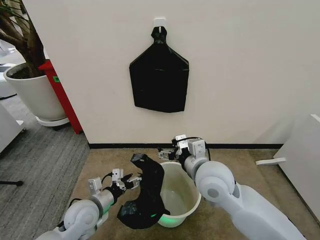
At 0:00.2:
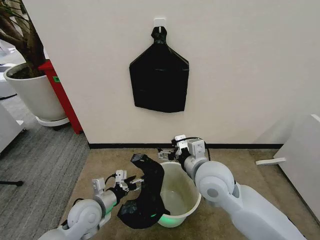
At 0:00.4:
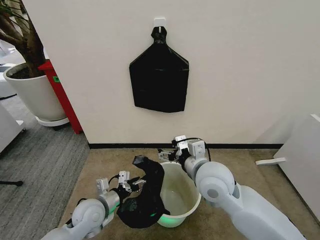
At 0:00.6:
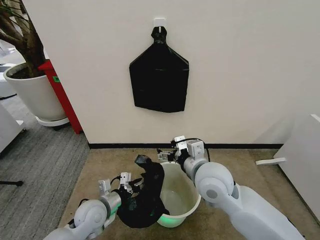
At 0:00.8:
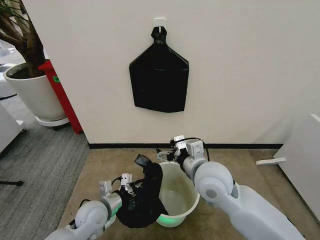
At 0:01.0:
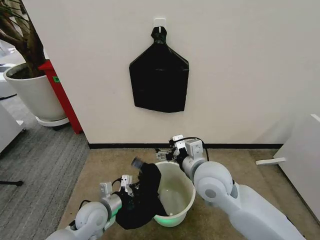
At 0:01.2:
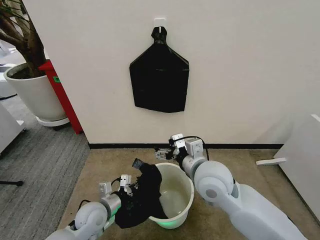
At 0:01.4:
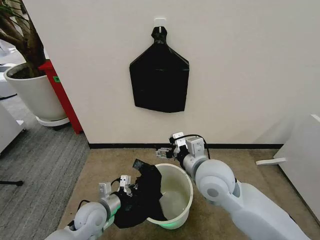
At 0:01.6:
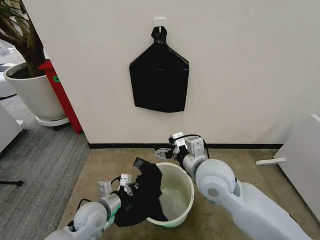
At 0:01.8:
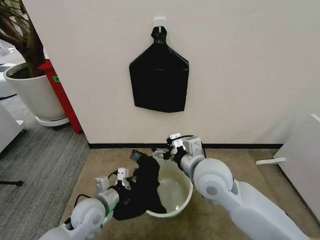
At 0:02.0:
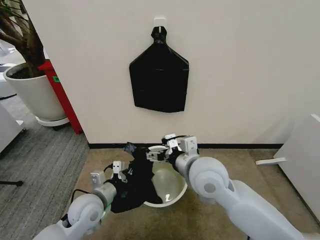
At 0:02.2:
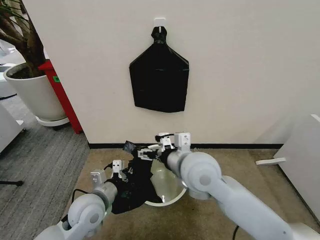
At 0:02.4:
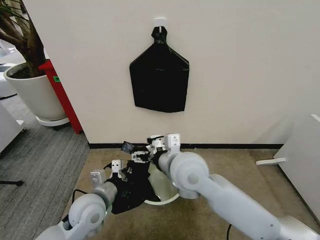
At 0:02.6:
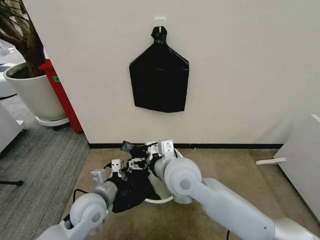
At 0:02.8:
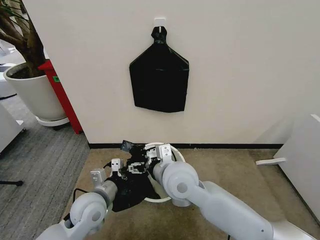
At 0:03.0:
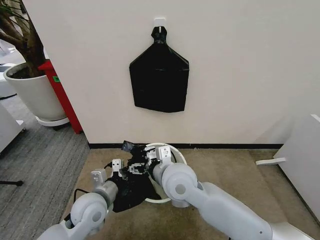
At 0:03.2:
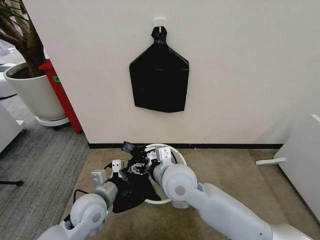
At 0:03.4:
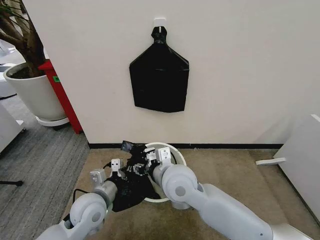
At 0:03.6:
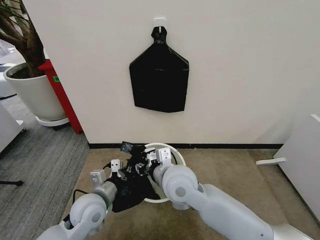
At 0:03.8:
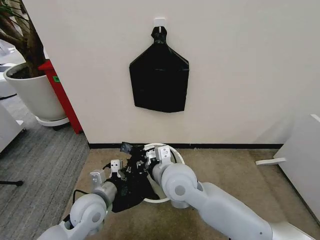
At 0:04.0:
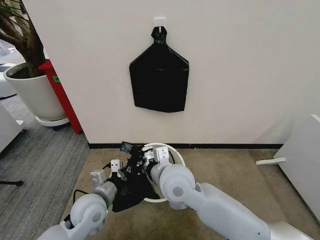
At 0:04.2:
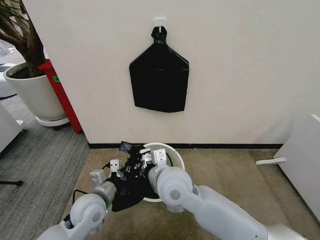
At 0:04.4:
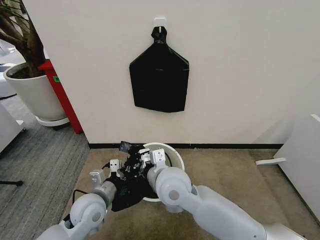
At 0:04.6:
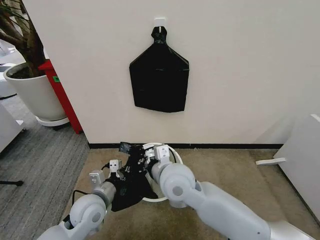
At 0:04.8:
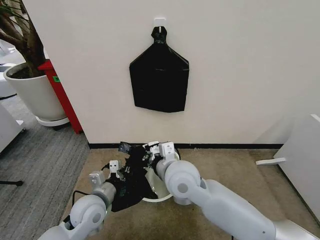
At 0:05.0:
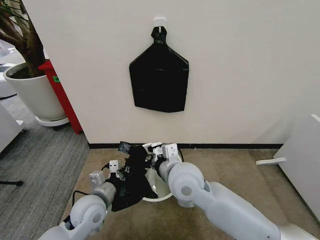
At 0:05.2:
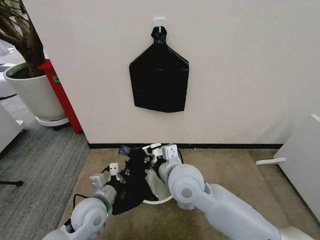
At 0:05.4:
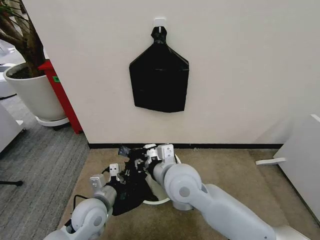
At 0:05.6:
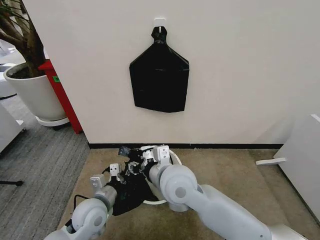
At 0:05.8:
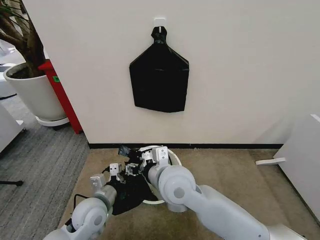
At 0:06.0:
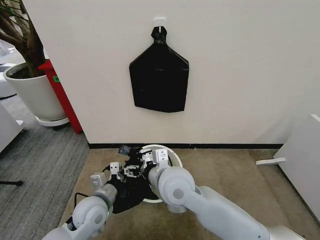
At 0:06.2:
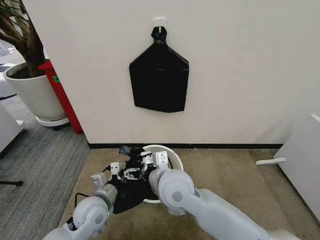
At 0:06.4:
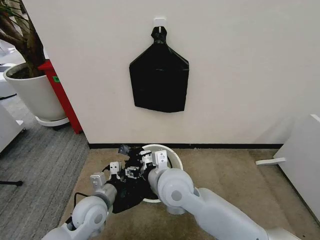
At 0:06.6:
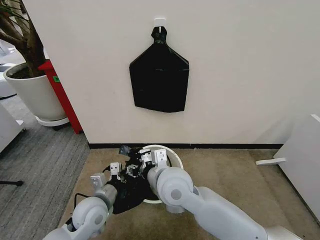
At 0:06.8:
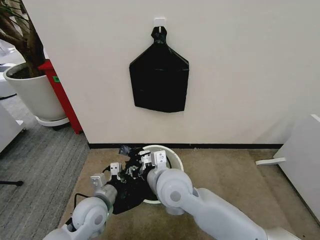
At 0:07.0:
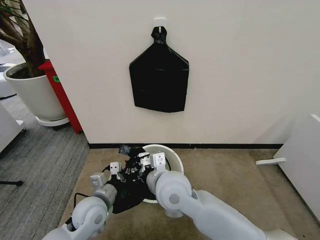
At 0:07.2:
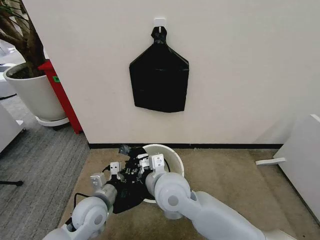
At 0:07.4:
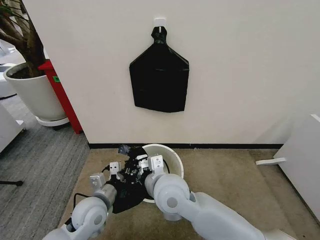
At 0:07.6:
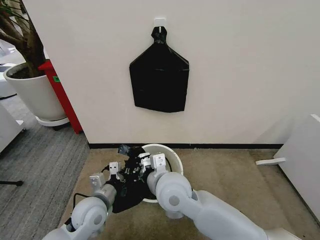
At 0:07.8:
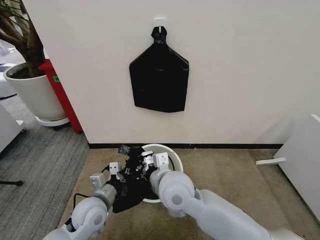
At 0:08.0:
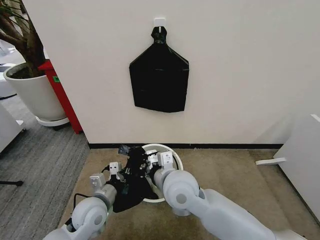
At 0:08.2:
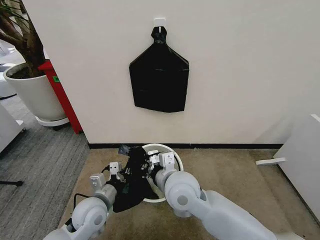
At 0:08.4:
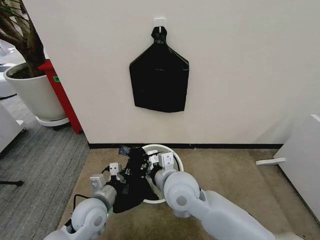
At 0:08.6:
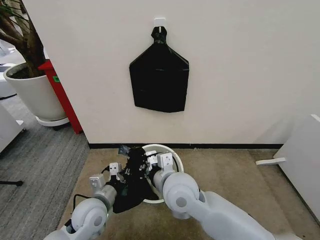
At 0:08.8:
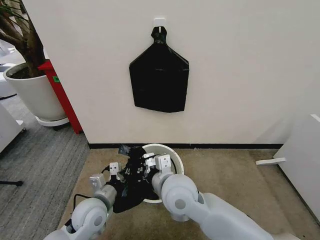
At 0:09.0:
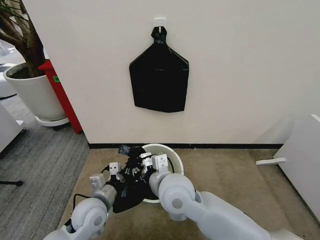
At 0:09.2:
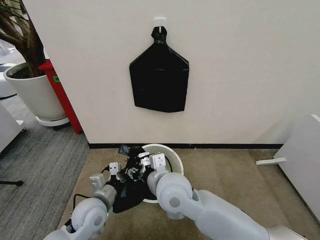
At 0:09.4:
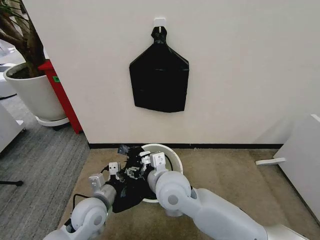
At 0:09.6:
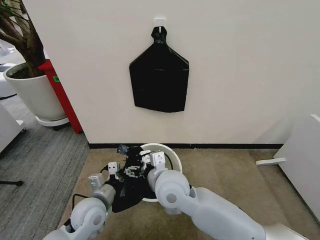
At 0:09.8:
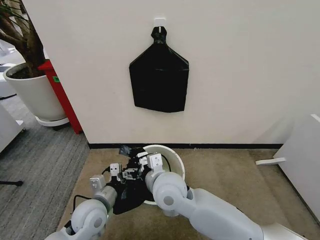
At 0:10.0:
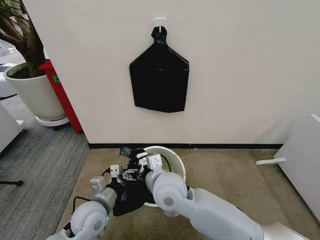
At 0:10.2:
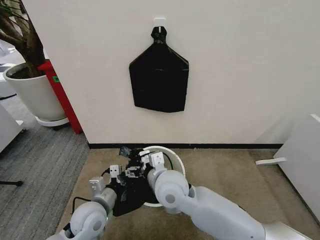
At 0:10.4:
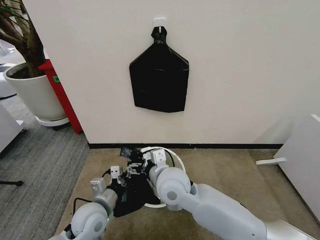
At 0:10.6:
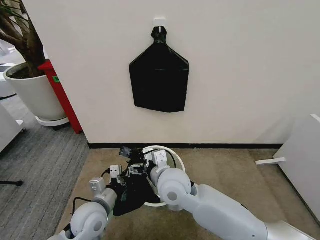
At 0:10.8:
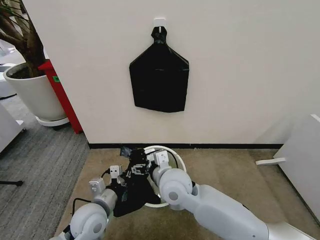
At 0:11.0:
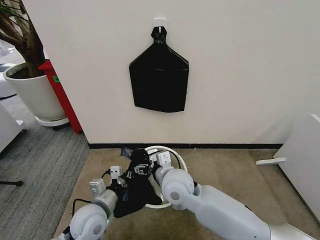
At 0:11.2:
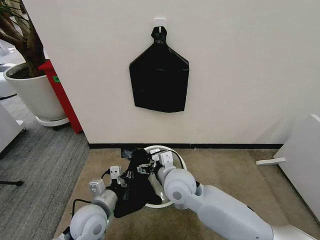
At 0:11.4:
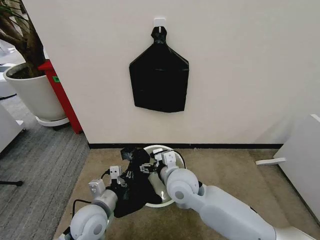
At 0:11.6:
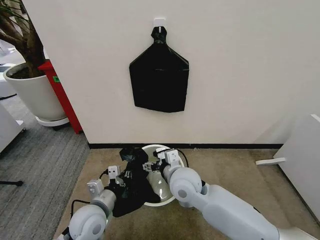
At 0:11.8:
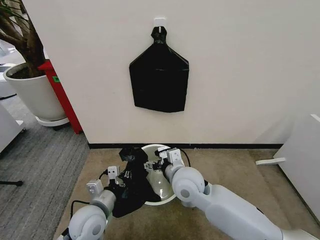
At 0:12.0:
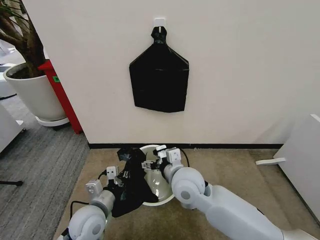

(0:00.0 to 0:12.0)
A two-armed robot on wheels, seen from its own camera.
Task of the whole recording: Place the garbage bag over the trash bin.
0:00.0 - 0:01.6: The left gripper closes up.
0:01.6 - 0:03.0: The right gripper travels to the left by approximately 10 cm. Meanwhile the left gripper shifts about 5 cm upward.
0:03.0 - 0:04.4: The right gripper closes.
0:04.4 - 0:06.0: The right gripper opens its fingers.
0:06.0 - 0:07.6: The right gripper closes its fingers.
0:07.6 - 0:09.0: There are only small adjustments of the grippers.
0:09.0 - 0:10.4: The right gripper opens up.
0:10.4 - 0:12.0: The grippers make only small movements.

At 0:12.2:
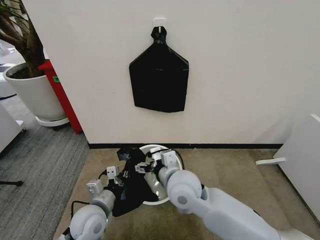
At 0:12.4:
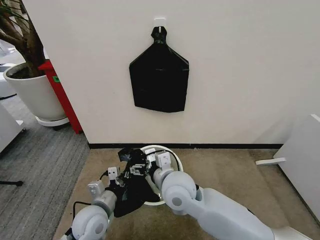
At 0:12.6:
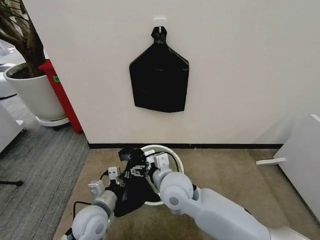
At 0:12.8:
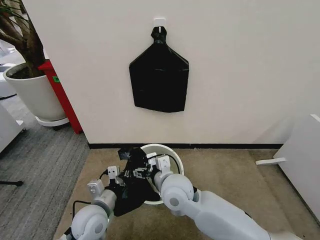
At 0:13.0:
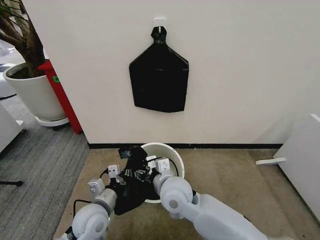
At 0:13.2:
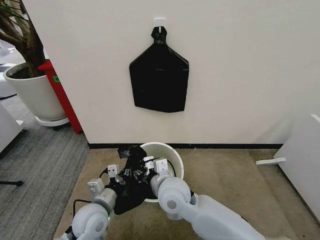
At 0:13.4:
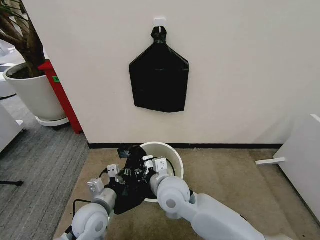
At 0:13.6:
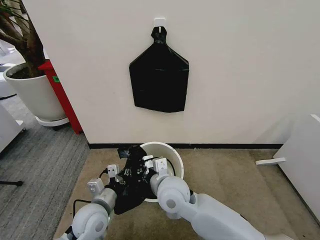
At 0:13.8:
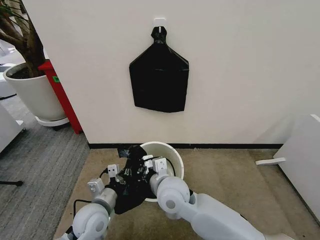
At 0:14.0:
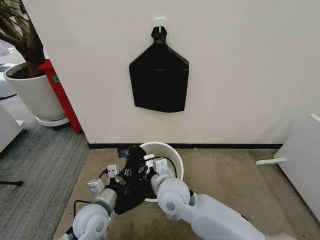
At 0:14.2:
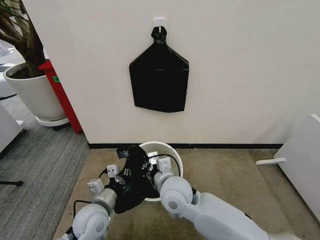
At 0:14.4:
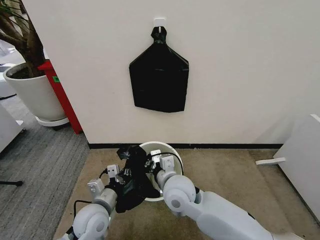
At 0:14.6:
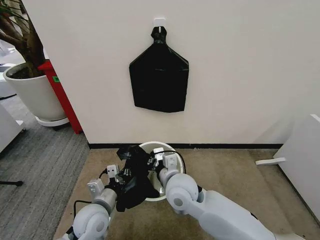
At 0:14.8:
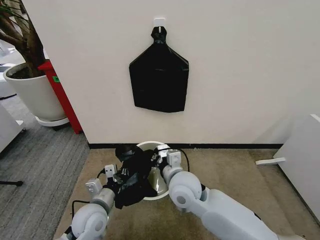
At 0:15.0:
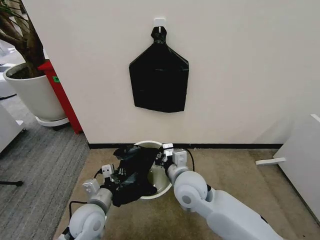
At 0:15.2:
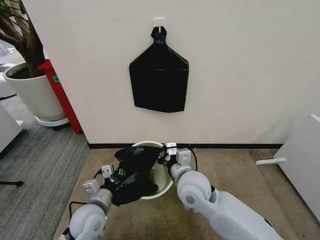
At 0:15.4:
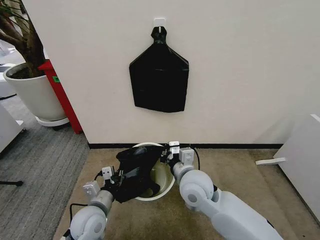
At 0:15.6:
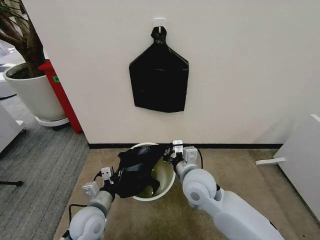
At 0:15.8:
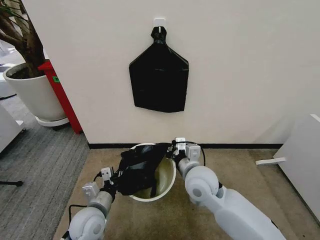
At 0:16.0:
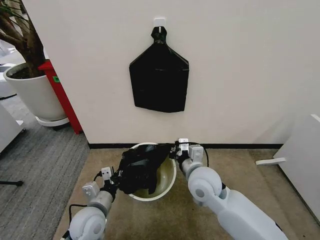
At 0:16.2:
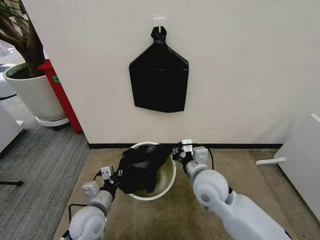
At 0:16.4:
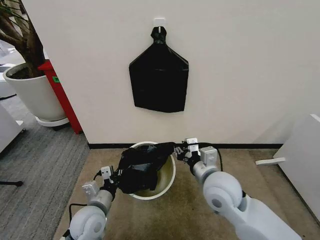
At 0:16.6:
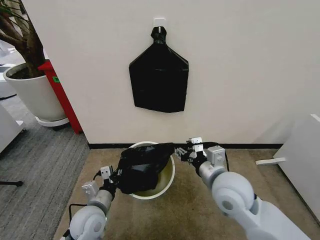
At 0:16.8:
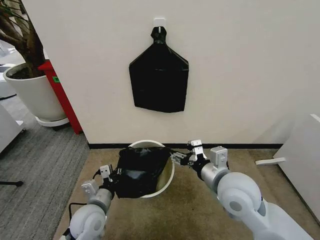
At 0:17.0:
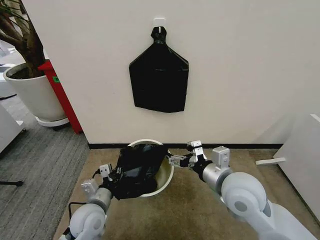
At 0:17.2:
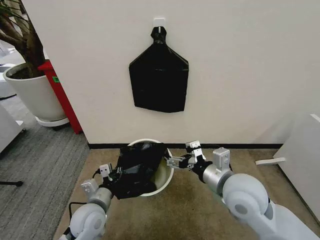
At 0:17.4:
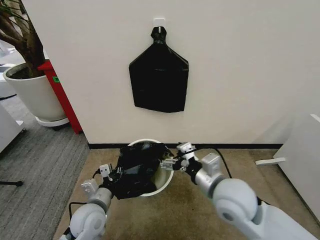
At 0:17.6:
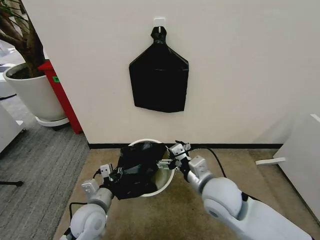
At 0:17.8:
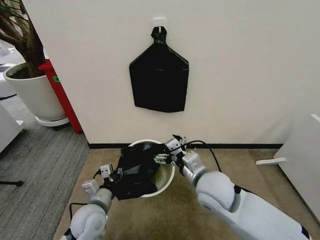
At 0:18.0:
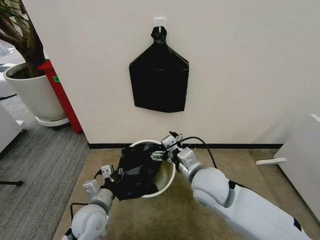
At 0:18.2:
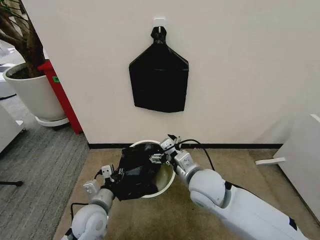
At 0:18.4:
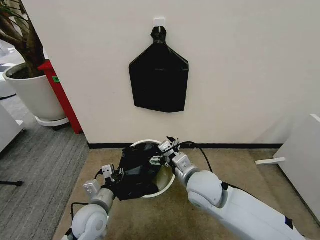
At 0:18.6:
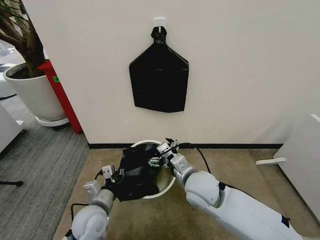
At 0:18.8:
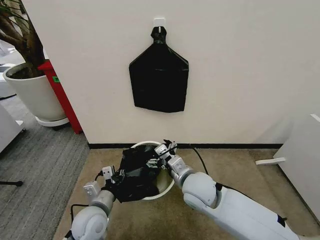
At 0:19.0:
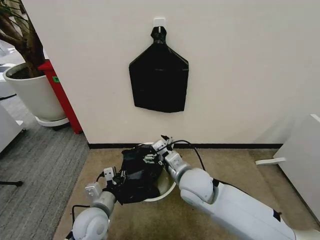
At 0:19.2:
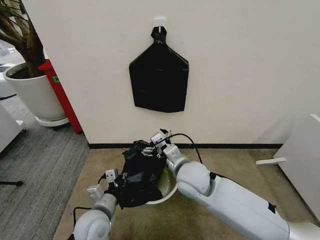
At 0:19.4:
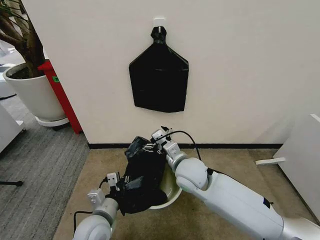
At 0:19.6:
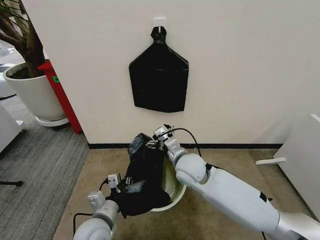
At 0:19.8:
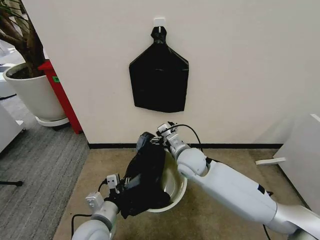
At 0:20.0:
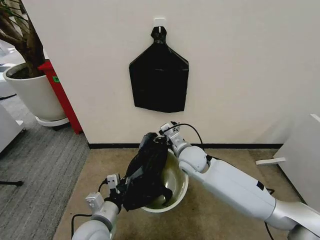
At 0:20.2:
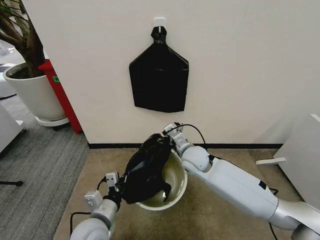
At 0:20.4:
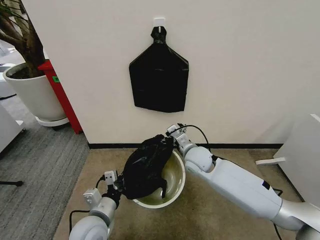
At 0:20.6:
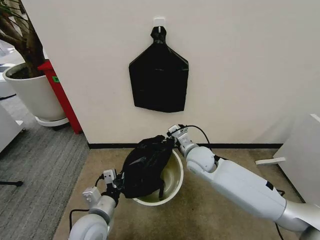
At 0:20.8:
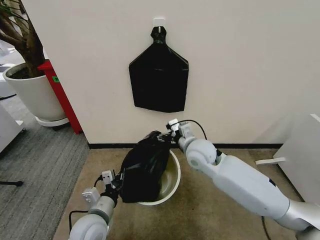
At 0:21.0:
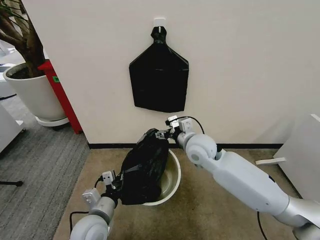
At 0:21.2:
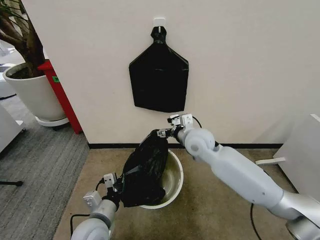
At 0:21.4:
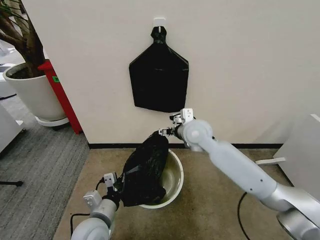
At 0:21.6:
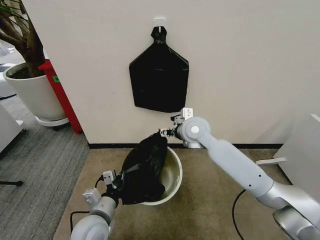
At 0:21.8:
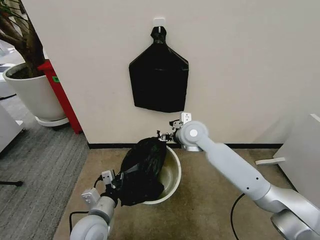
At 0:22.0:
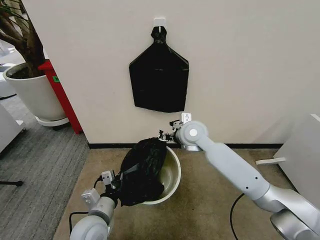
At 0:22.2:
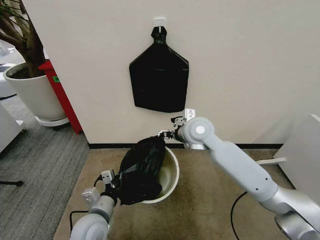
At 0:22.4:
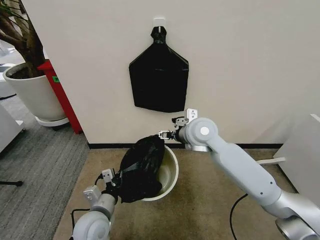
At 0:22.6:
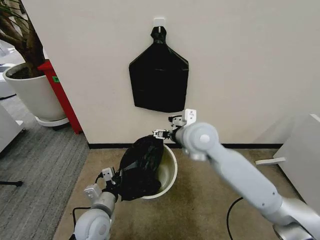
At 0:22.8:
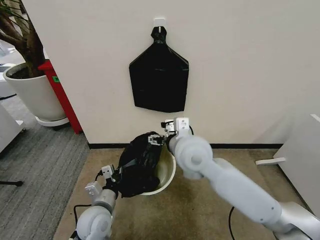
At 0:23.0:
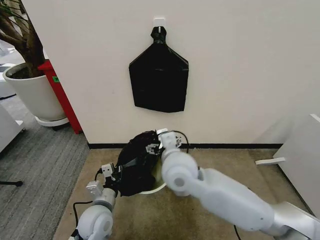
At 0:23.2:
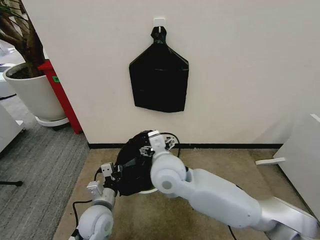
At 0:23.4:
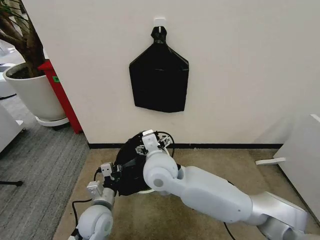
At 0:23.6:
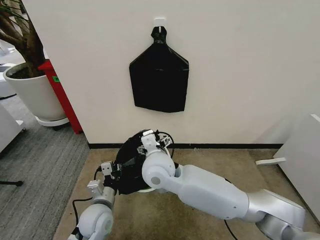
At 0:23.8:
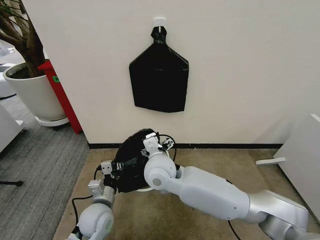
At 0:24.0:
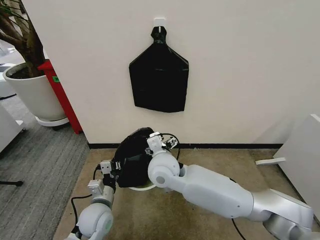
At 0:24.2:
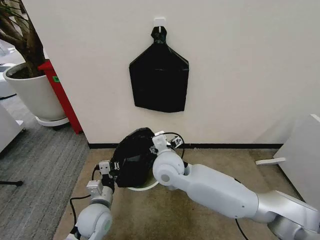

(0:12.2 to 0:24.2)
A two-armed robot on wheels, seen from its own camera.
Task of the whole recording: Place the garbage bag over the trash bin.
0:12.2 - 0:13.8: The right gripper closes up.
0:13.8 - 0:15.2: The right gripper travels to the right by some 5 cm.
0:15.2 - 0:16.6: The right gripper heads to the right, covering approximately 10 cm, and opens its fingers.
0:16.6 - 0:18.2: The right gripper heads to the left, covering some 5 cm, and opens.
0:18.2 - 0:19.8: The left gripper shifts by roughly 5 cm; the right gripper heads forward, covering approximately 10 cm.
0:19.8 - 0:21.2: The right gripper heads upward and forward, covering some 10 cm.
0:21.2 - 0:22.6: The right gripper is displaced upward by roughly 5 cm.
0:22.6 - 0:24.2: The right gripper goes about 10 cm downward and to the left.
